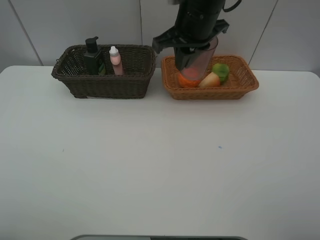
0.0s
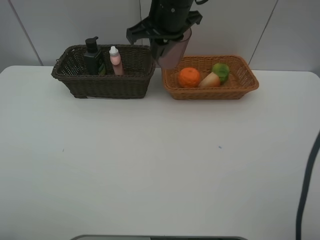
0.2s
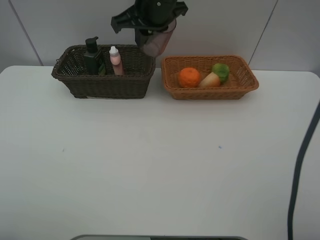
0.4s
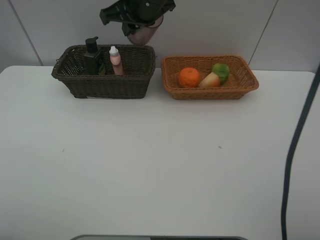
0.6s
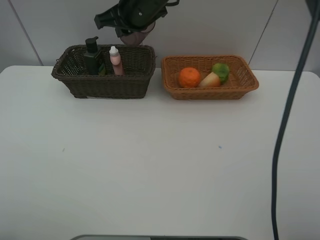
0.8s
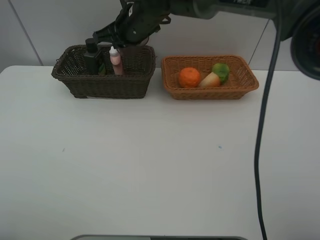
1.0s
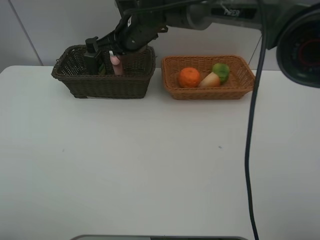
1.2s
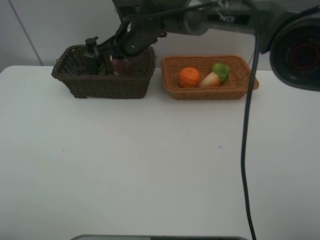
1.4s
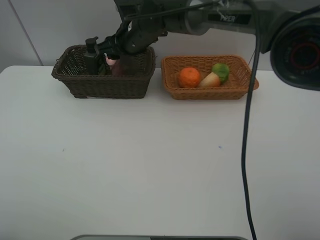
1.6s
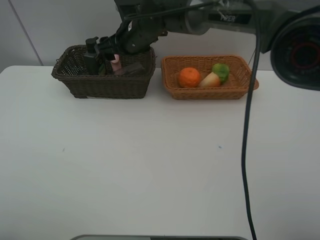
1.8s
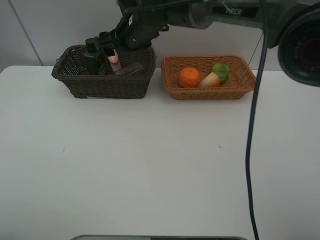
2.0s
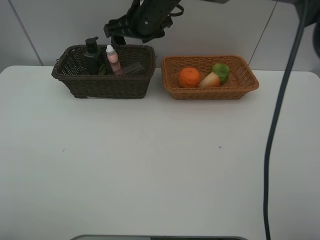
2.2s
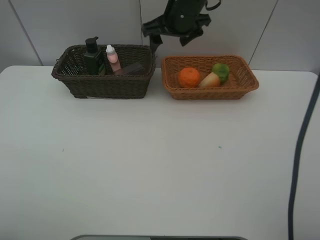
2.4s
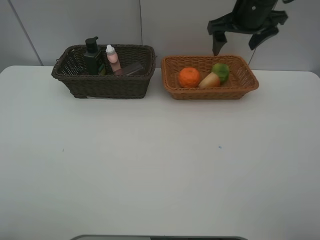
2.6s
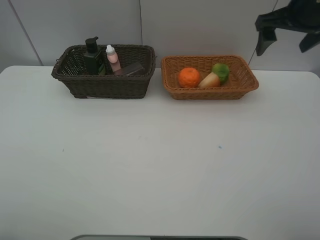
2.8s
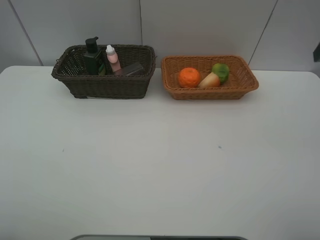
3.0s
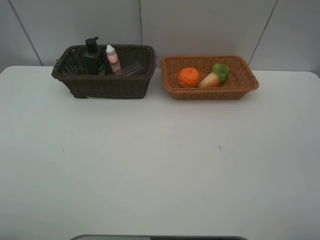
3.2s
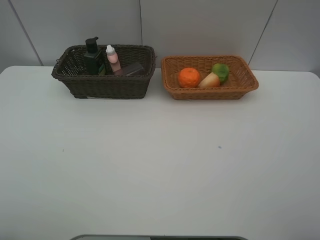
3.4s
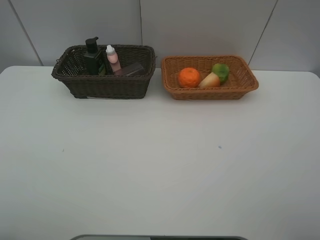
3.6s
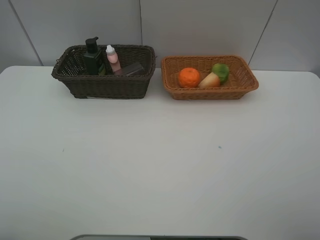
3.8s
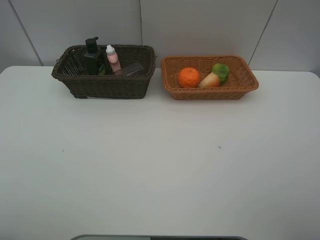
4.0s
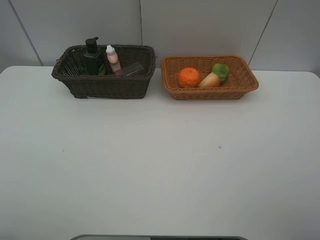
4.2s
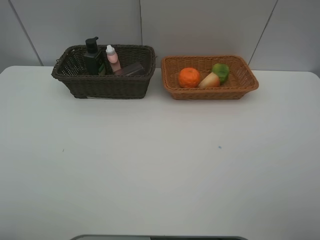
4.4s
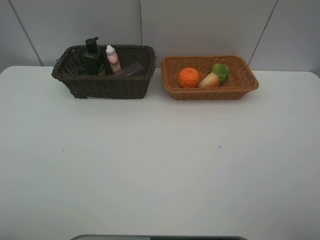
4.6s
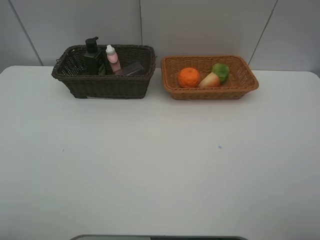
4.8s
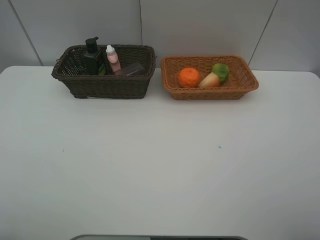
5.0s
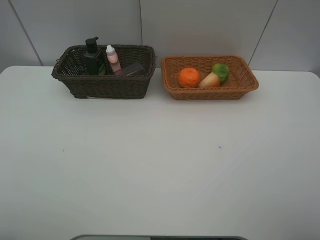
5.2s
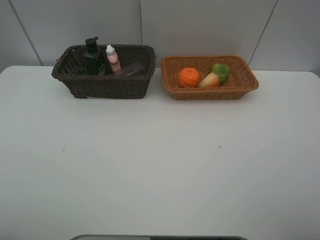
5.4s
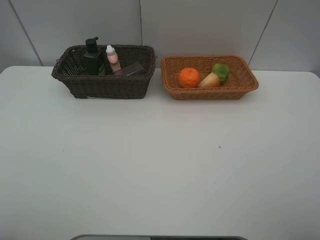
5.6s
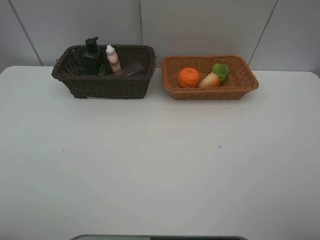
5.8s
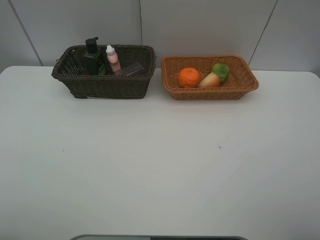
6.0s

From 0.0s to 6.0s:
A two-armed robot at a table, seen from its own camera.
Task of the whole recording: place multiple objects separately in different baskets.
From 0.0s to 1.6s: The right gripper travels to the left, downward and forward by approximately 15 cm, and opens.
From 1.6s to 3.0s: The right gripper travels to the right, backward and upward by approximately 40 cm, and opens.

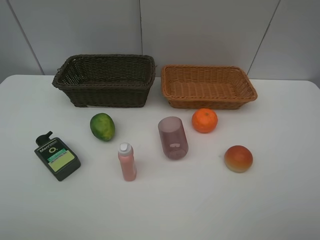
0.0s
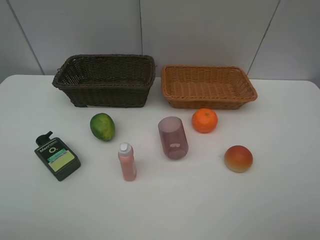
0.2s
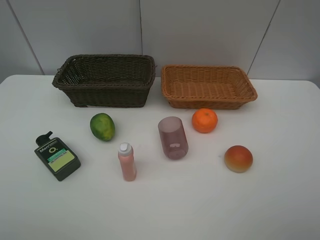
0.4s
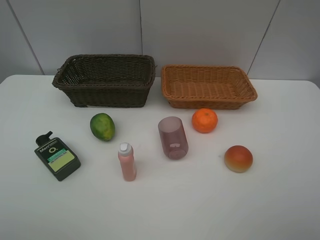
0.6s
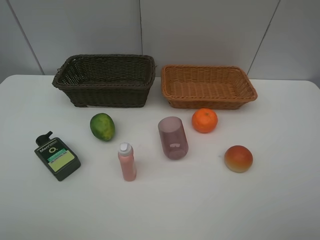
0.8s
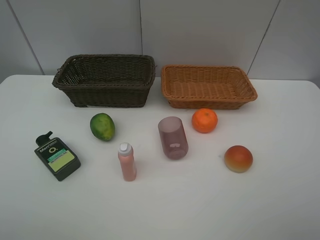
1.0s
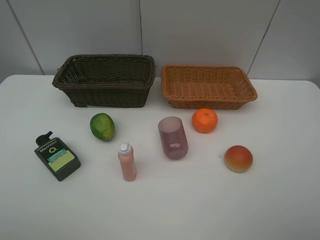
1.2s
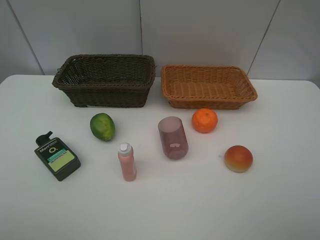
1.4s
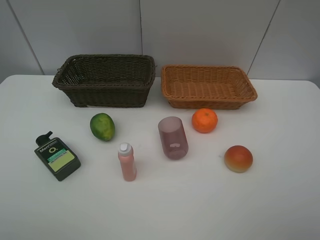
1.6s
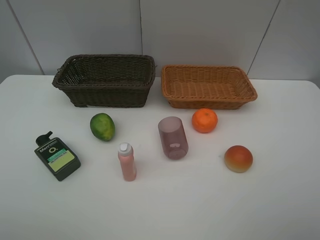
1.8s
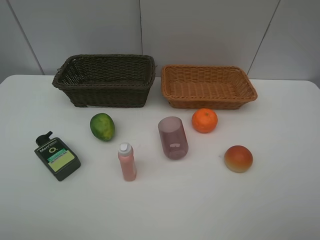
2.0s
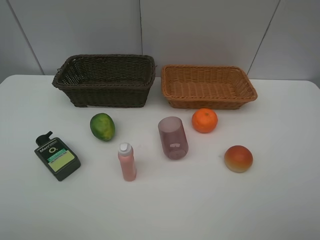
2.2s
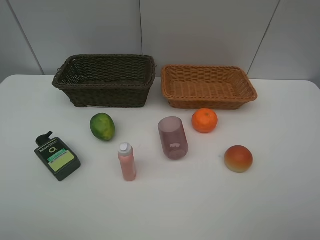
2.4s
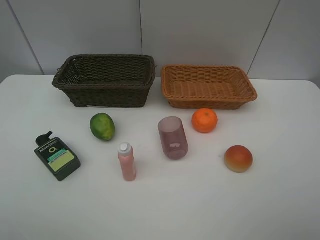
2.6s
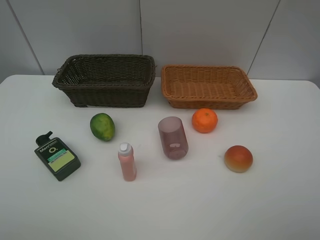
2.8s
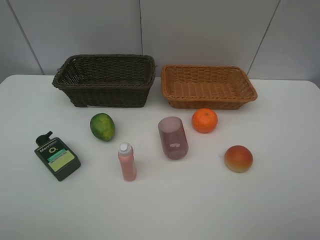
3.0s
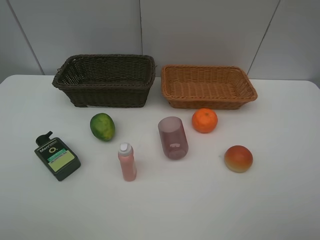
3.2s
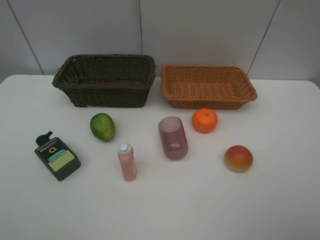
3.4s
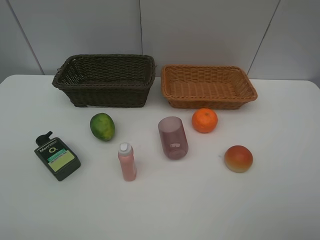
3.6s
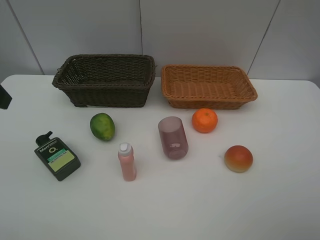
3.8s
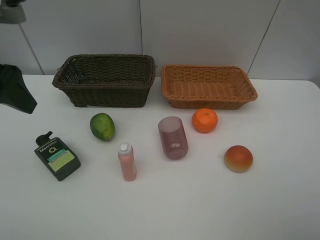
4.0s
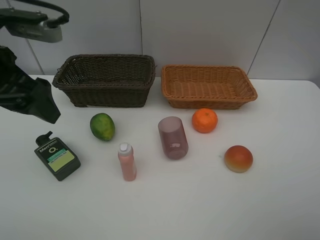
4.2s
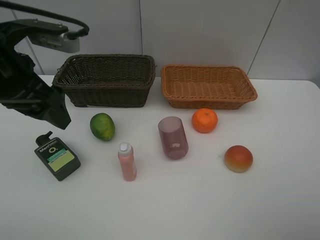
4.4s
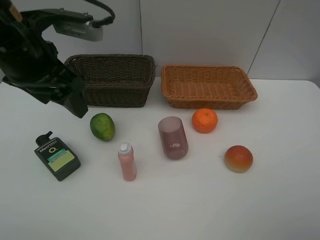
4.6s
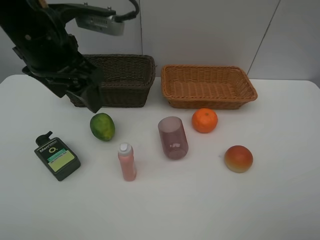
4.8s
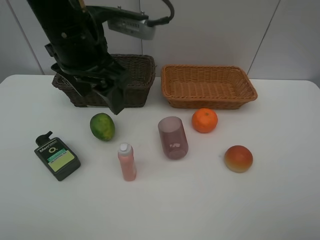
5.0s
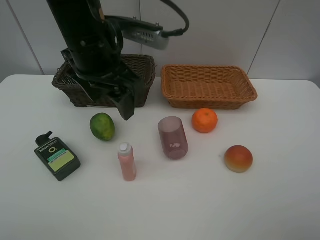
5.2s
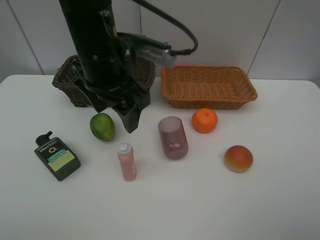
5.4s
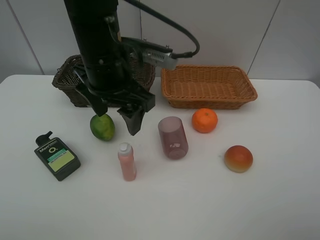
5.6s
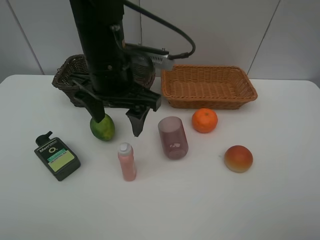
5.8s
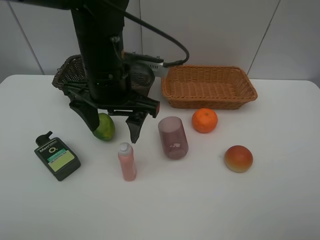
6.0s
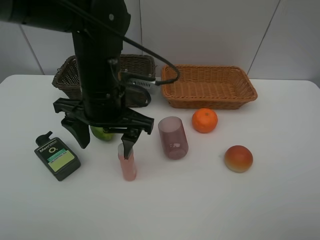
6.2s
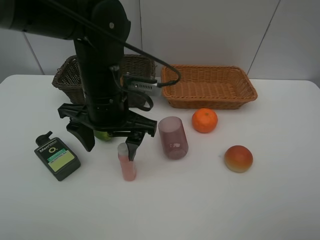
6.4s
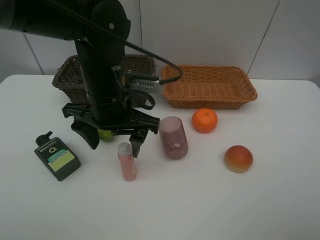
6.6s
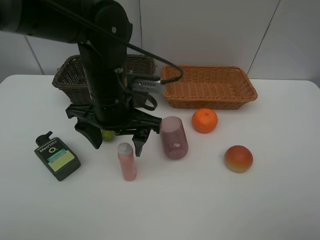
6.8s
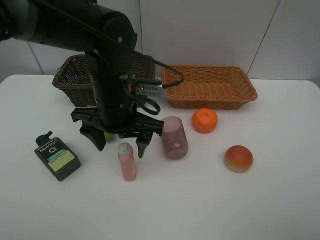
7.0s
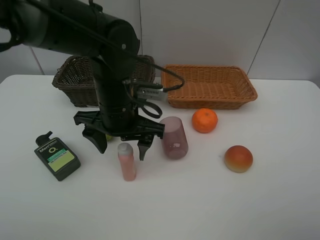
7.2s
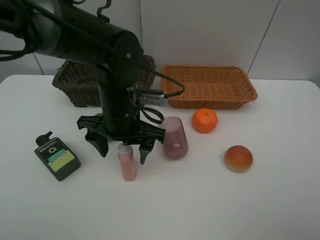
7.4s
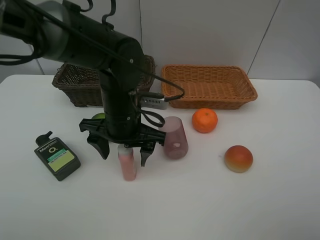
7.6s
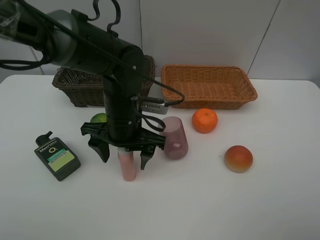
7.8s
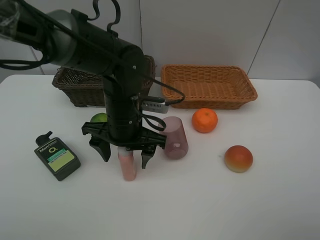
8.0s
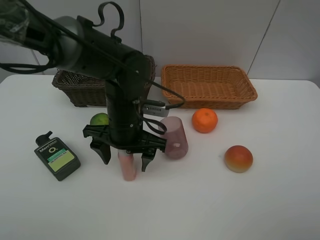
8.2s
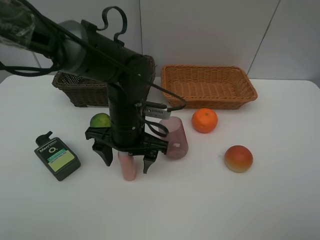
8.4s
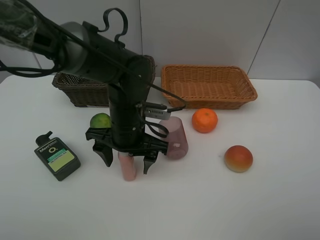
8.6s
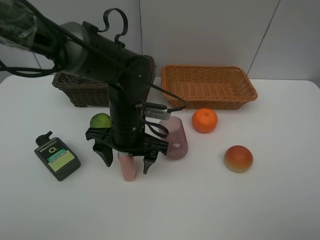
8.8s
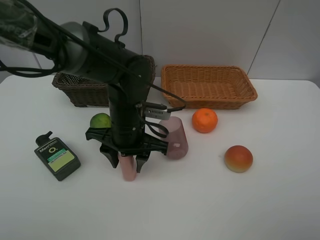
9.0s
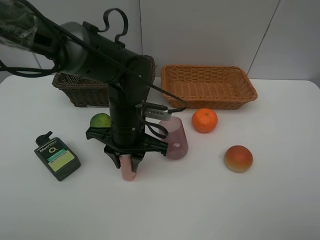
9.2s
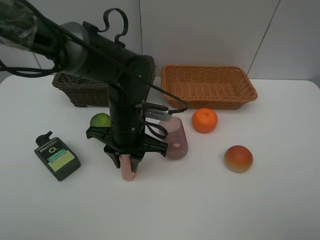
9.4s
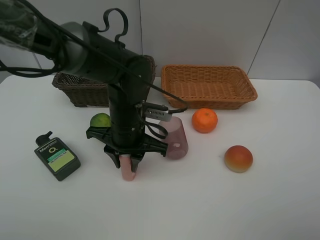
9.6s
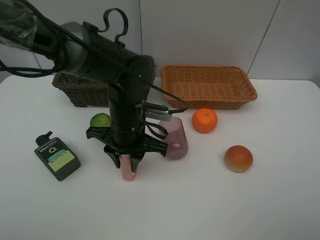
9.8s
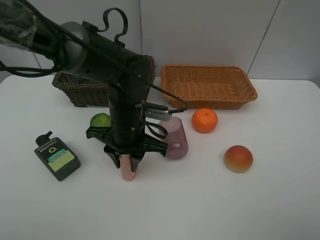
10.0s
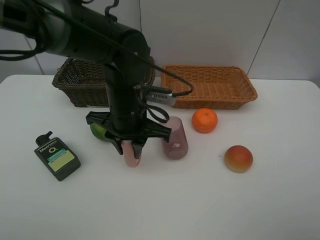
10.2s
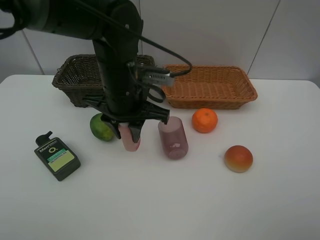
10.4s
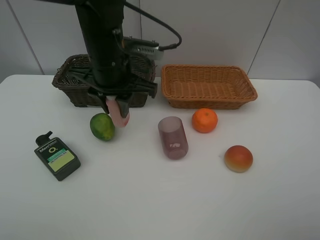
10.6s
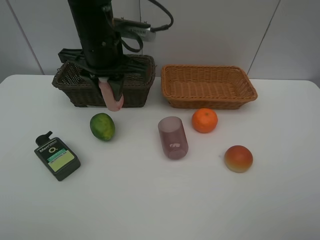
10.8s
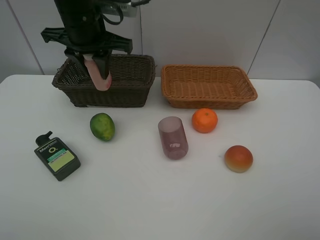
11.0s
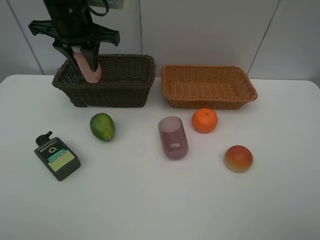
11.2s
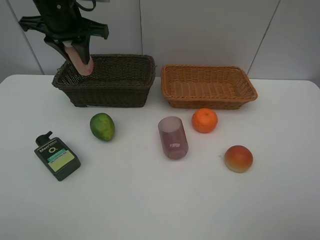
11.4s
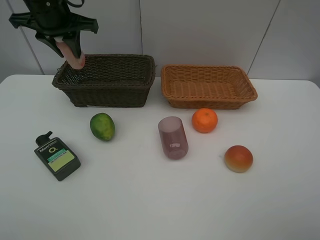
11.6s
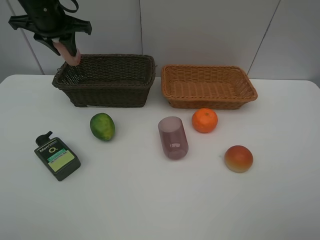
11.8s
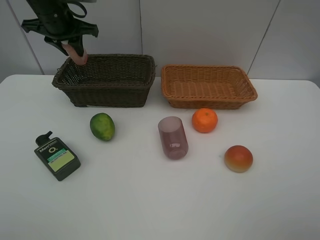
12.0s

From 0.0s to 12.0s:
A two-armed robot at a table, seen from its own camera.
Task of the whole recording: place multiple objects separately in different baskets.
From 0.0s to 1.6s: The two grippers keep their place.
From 3.0s to 4.4s: The left gripper heads forward and to the right, covering about 25 cm.
From 4.4s to 6.0s: The left gripper heads to the right, covering roughly 15 cm.
From 6.0s to 7.6s: The left gripper is displaced downward by roughly 10 cm.
From 7.6s to 9.0s: The left gripper closes up.
From 9.0s to 10.4s: The left gripper shifts some 10 cm upward.
From 10.4s to 12.0s: The left gripper is displaced forward and to the left by some 25 cm.

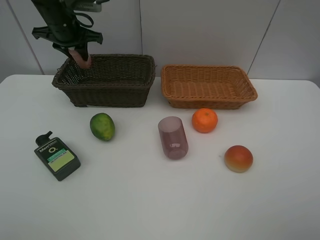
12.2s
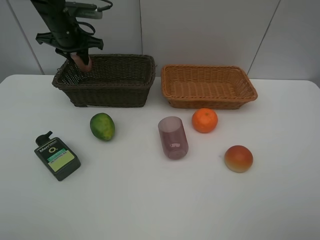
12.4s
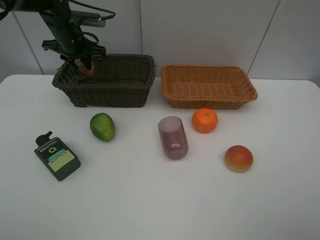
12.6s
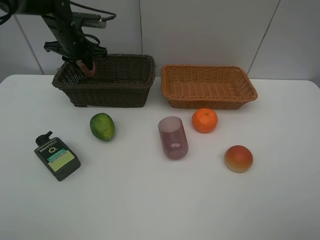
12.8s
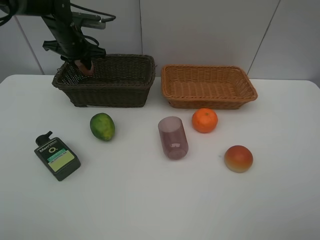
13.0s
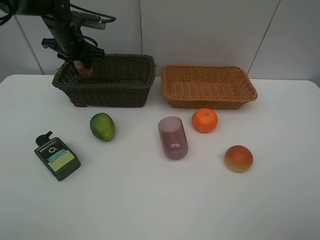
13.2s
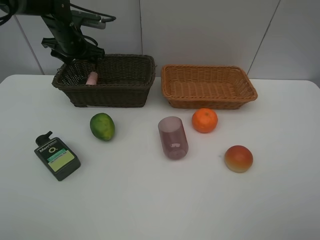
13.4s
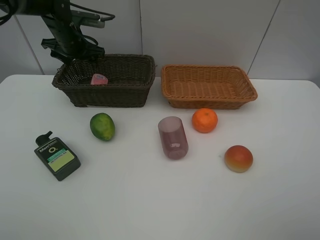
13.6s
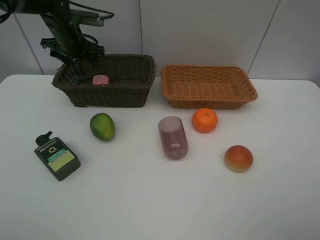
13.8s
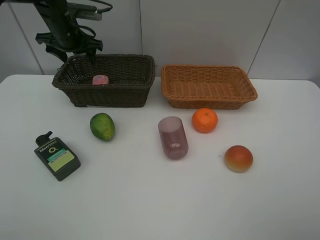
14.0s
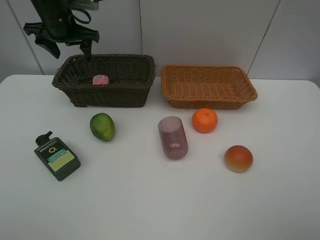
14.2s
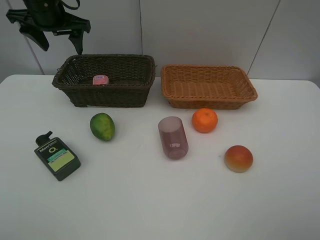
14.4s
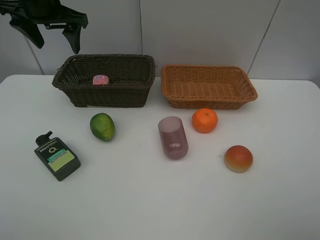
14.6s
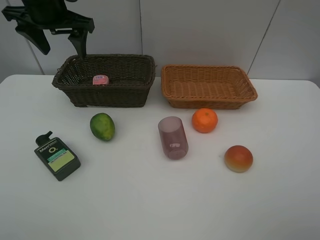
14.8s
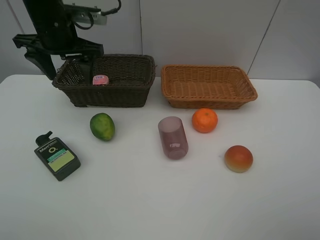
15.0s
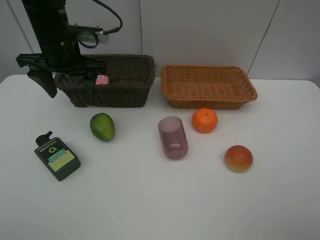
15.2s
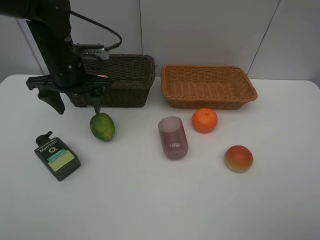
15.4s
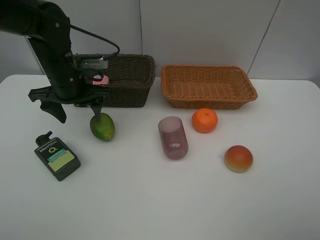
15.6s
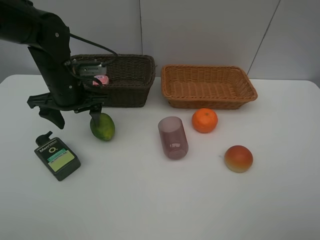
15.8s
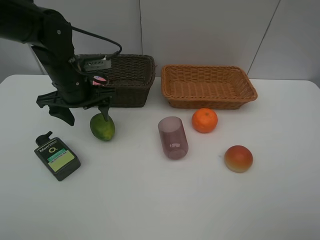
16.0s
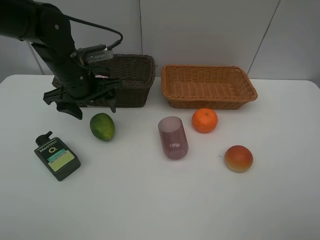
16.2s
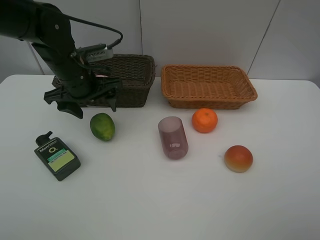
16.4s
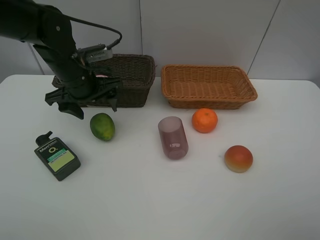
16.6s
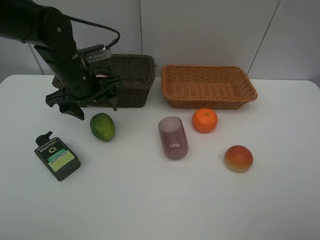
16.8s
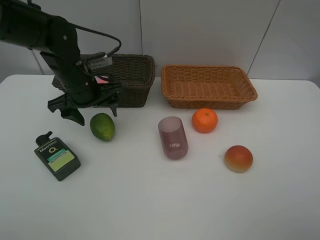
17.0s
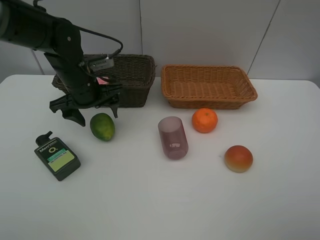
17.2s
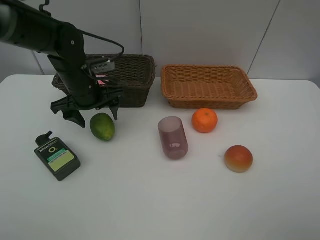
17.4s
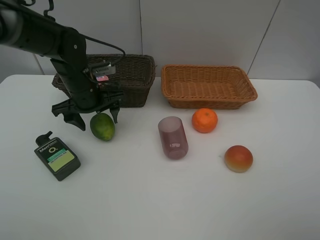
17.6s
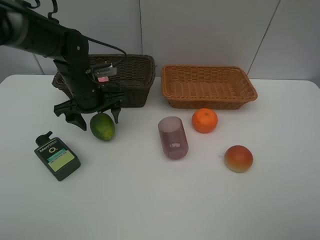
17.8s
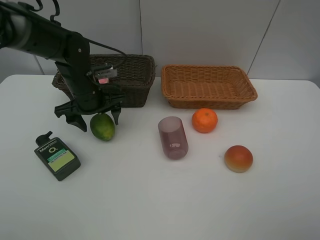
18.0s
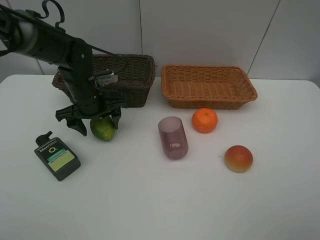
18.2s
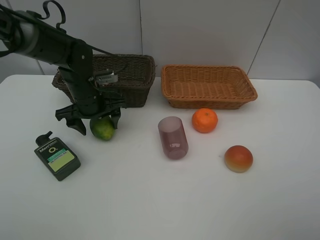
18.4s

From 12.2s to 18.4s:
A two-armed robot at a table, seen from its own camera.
Task of the whole recording: place multiple objects separately in different baskets.
From 12.2s to 13.8s: The left gripper opens.
From 13.8s to 15.4s: The left gripper travels backward by about 15 cm.
From 15.4s to 16.8s: The grippers make only small movements.
From 16.8s to 18.4s: The left gripper travels downward by approximately 5 cm.
